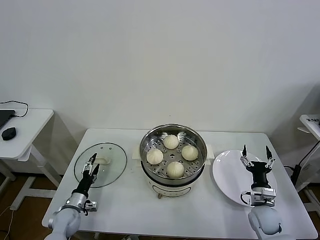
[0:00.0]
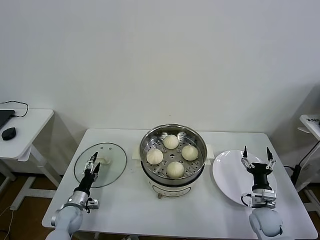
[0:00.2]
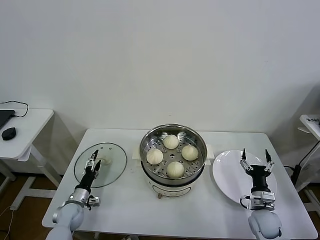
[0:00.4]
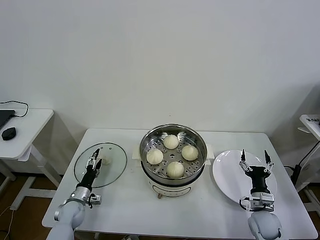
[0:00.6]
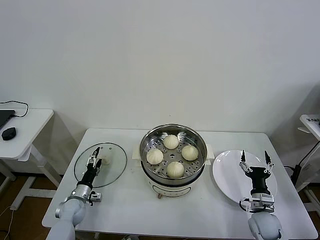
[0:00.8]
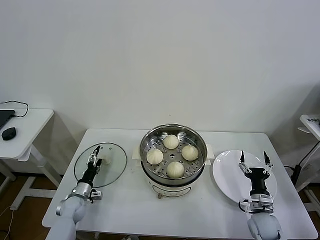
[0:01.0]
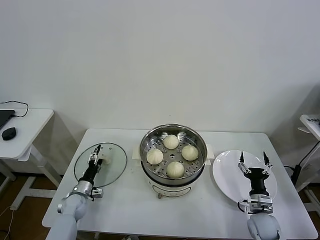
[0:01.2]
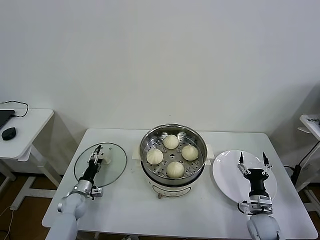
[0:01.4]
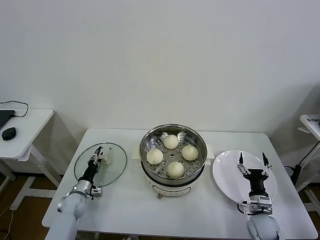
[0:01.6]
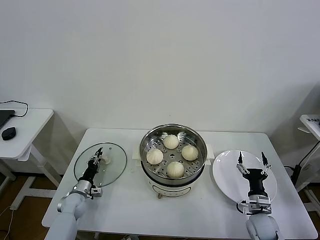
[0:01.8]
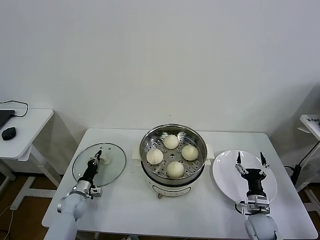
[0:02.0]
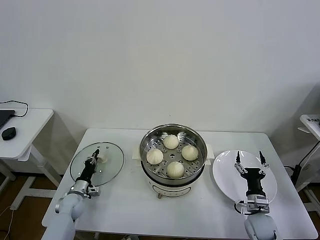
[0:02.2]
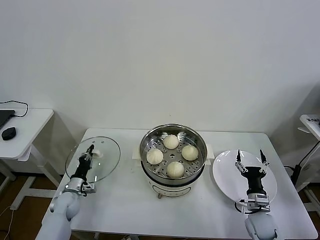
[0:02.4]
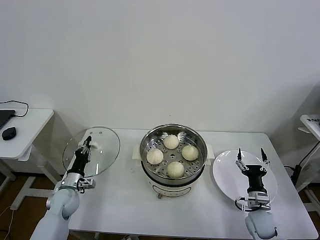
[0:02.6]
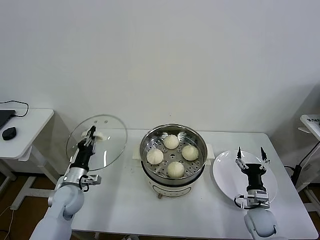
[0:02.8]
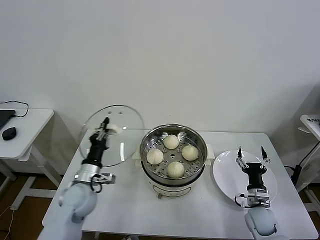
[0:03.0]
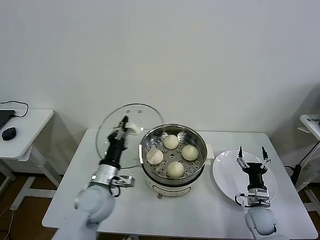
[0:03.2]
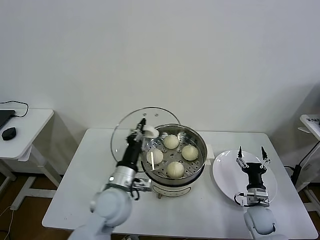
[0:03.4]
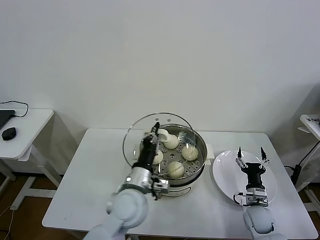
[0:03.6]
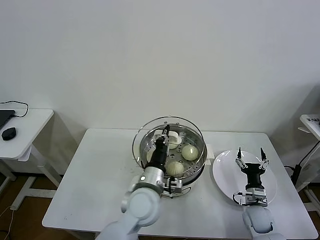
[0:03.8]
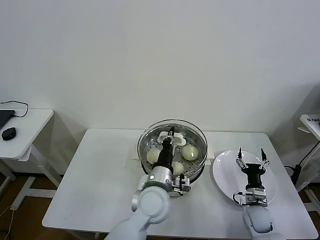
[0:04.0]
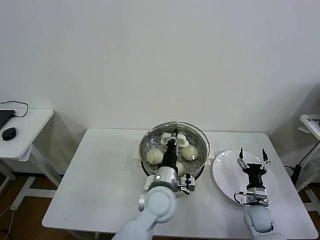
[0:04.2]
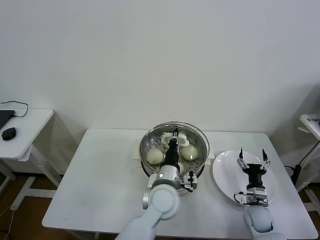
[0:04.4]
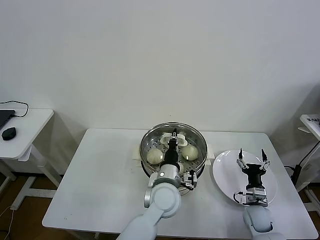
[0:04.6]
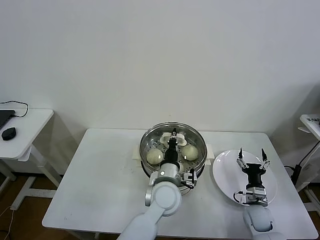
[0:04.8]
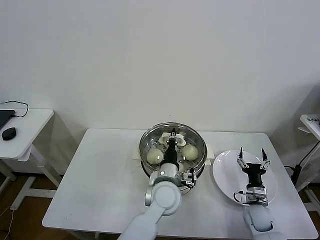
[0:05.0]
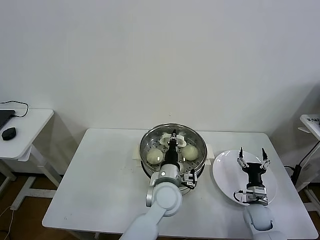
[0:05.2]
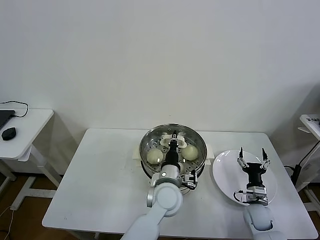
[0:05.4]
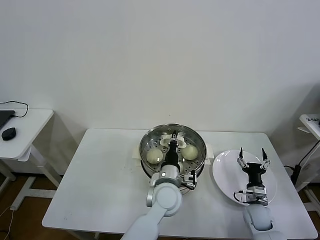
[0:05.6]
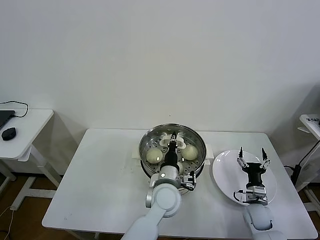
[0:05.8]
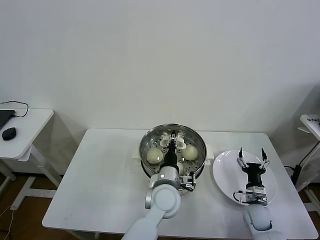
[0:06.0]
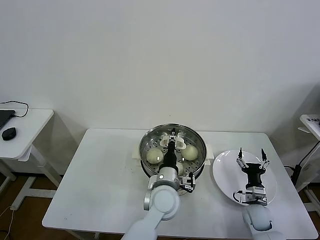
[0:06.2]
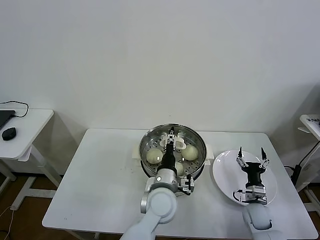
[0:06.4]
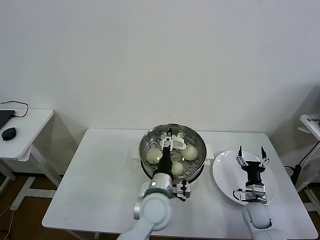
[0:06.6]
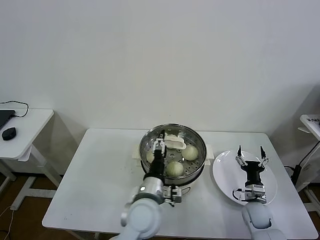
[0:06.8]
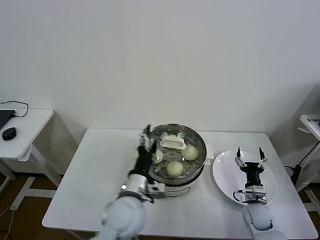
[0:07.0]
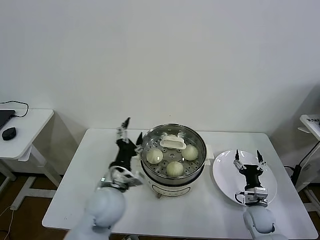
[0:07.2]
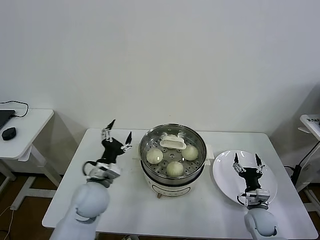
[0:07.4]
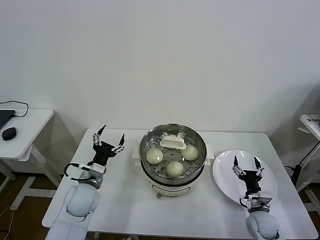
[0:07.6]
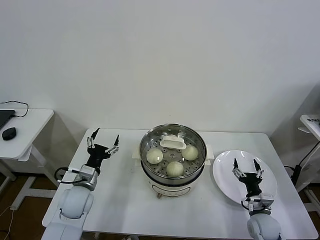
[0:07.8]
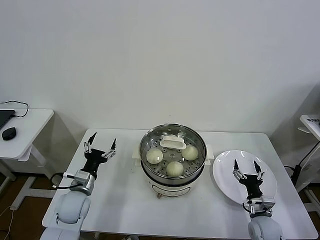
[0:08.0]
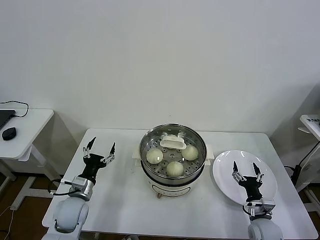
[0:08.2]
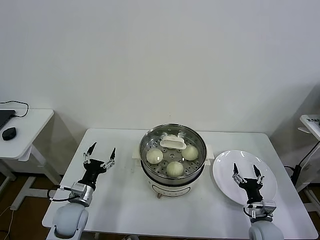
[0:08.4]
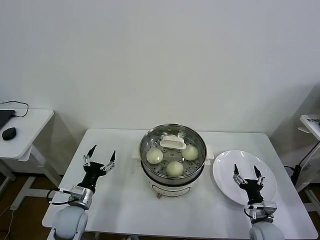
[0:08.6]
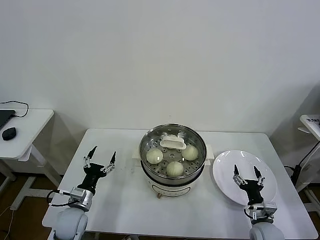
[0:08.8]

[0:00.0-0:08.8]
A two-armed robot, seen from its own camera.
Task of the whole recording: take steamed baozi put them in steamer then cover it.
Step, 0.0 to 2.2 s: Grasp the pot lid with left gripper.
Step, 2.4 to 6.2 s: Place the pot lid on the steamer with left gripper.
0.0 to 1.4 s: The left gripper is displaced forward by approximately 5 cm.
1.4 to 3.0 s: The left gripper moves upward and to the right, approximately 20 cm, and closes.
3.0 to 4.4 s: The left gripper heads to the right, covering about 25 cm.
4.4 to 5.8 s: The grippers make only small movements.
5.8 to 7.4 s: The left gripper moves to the left, about 20 cm, and opens up.
7.4 to 8.8 s: The right gripper shifts approximately 5 cm backward, while the left gripper travels downward and to the left by roughly 15 cm.

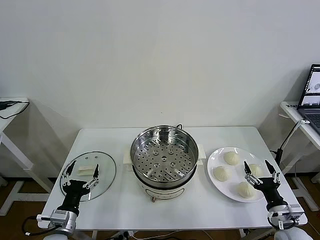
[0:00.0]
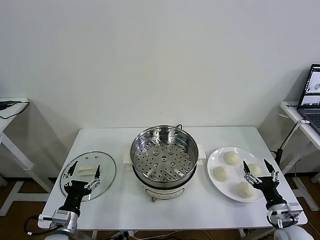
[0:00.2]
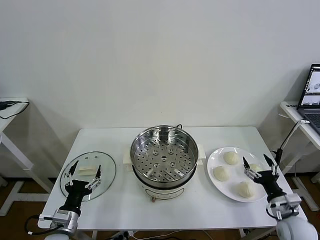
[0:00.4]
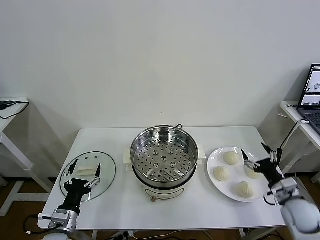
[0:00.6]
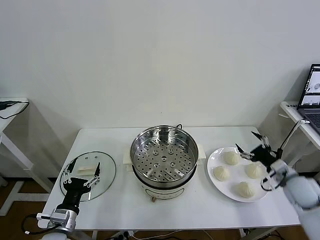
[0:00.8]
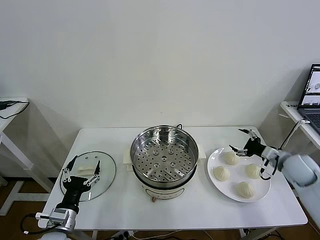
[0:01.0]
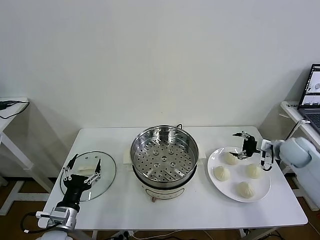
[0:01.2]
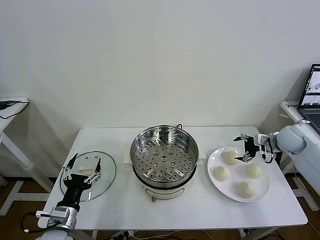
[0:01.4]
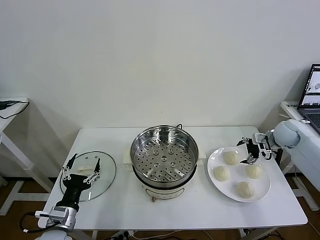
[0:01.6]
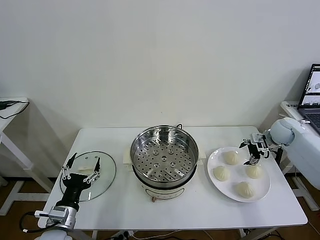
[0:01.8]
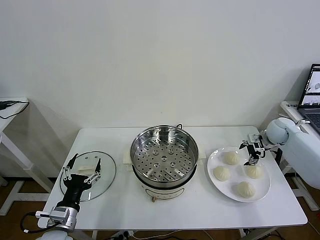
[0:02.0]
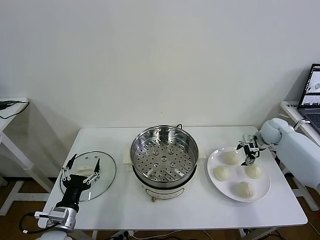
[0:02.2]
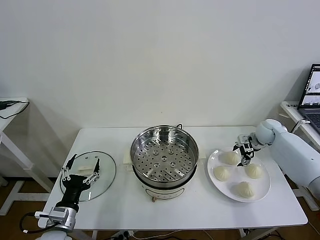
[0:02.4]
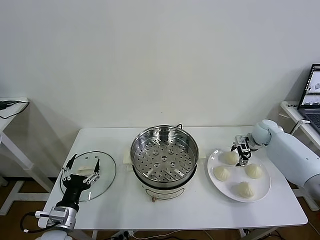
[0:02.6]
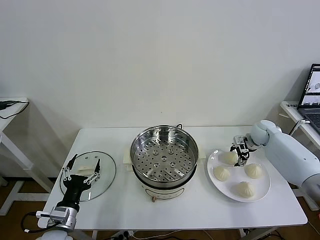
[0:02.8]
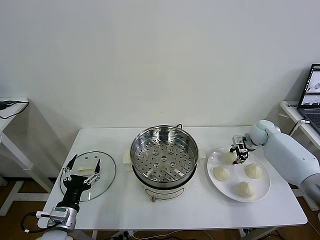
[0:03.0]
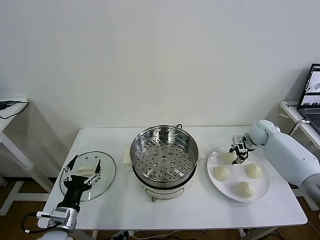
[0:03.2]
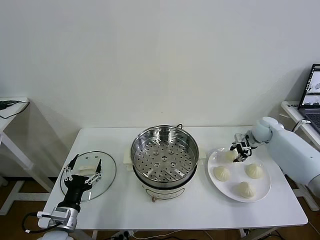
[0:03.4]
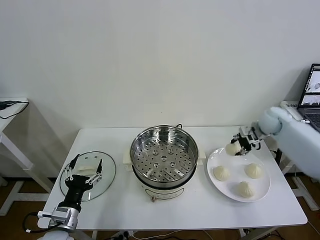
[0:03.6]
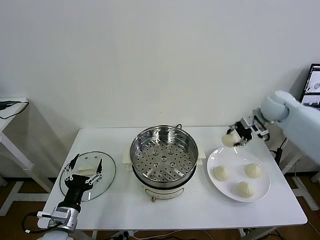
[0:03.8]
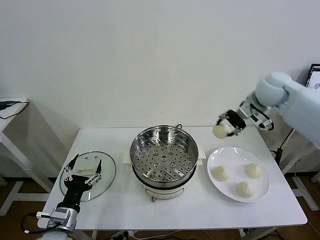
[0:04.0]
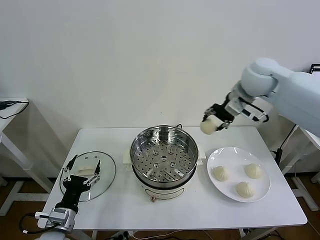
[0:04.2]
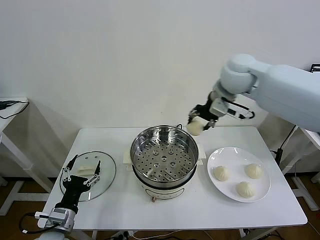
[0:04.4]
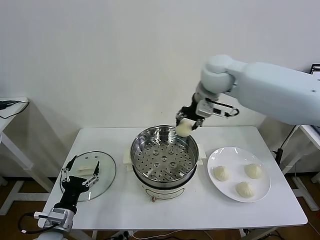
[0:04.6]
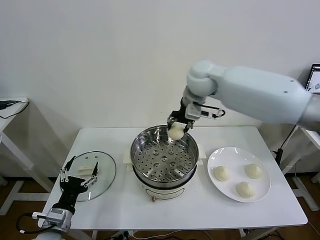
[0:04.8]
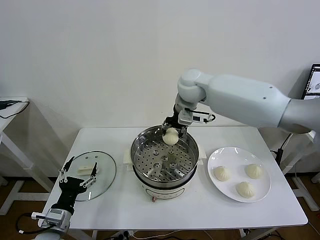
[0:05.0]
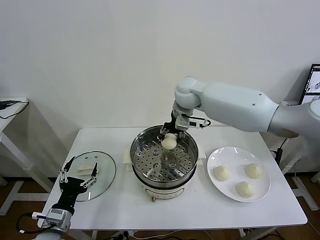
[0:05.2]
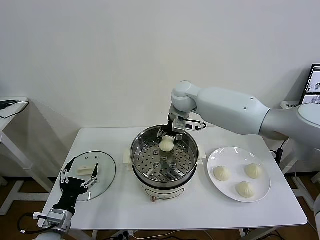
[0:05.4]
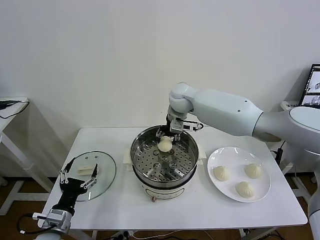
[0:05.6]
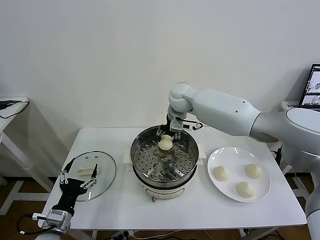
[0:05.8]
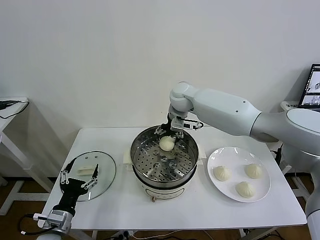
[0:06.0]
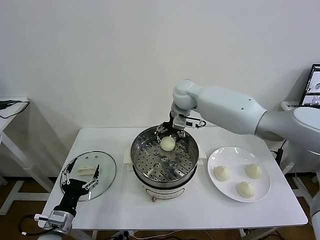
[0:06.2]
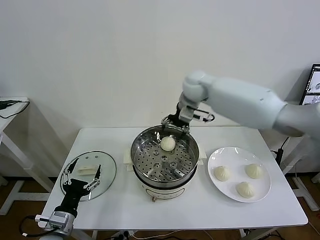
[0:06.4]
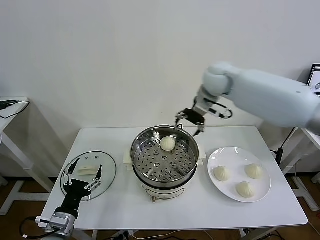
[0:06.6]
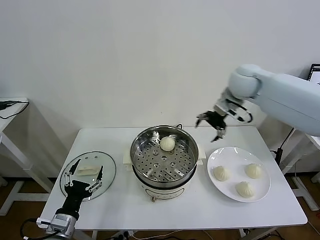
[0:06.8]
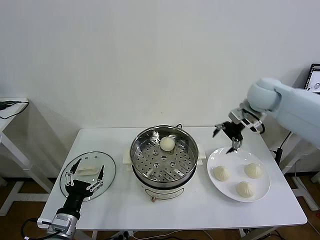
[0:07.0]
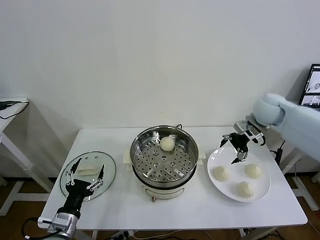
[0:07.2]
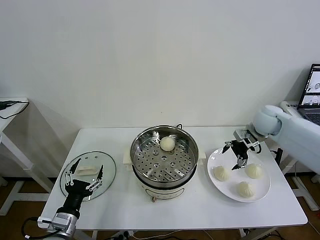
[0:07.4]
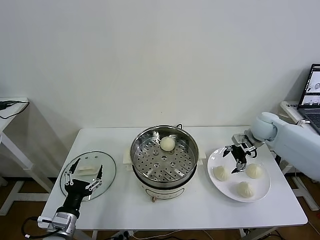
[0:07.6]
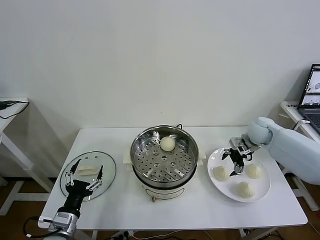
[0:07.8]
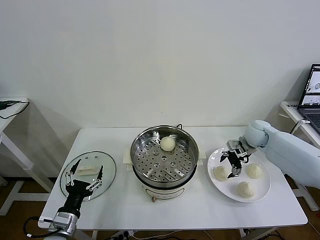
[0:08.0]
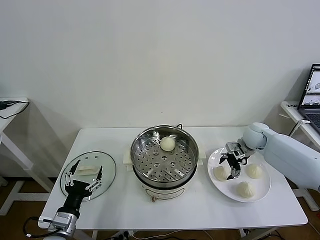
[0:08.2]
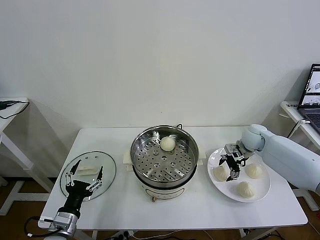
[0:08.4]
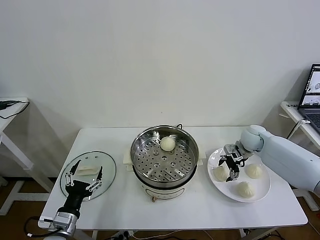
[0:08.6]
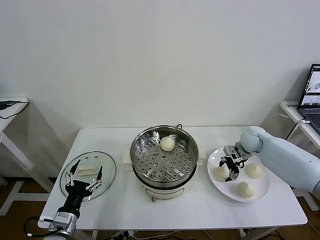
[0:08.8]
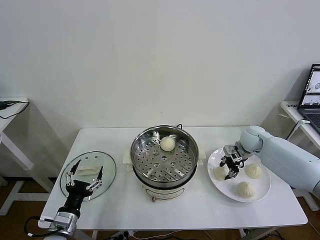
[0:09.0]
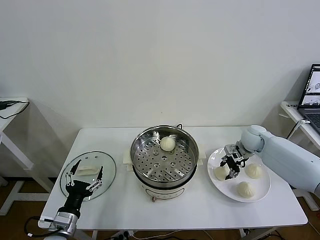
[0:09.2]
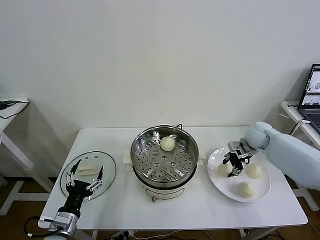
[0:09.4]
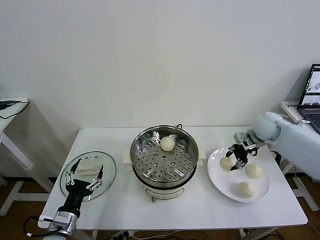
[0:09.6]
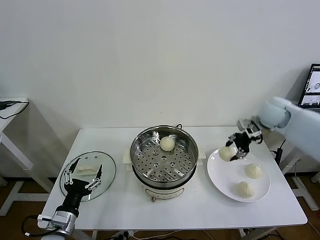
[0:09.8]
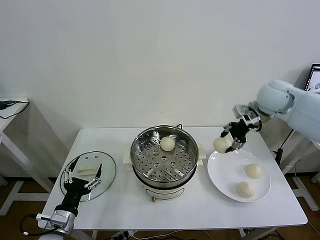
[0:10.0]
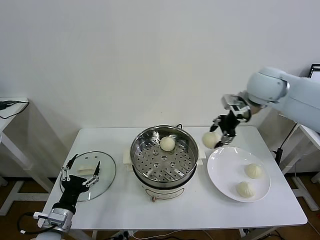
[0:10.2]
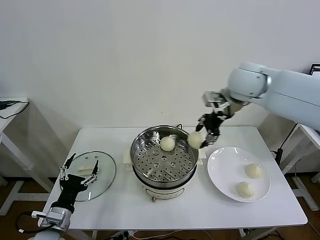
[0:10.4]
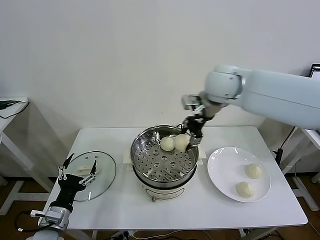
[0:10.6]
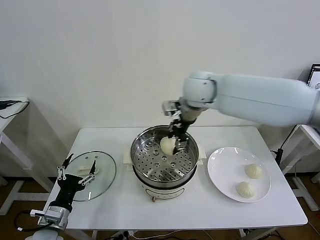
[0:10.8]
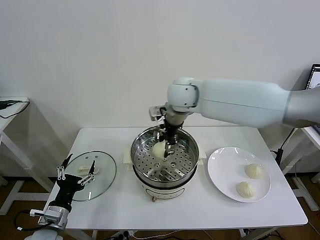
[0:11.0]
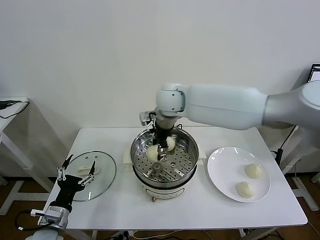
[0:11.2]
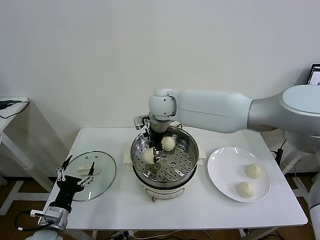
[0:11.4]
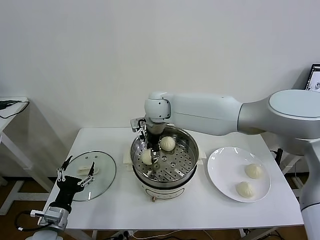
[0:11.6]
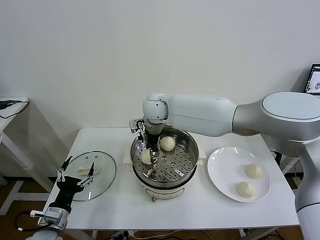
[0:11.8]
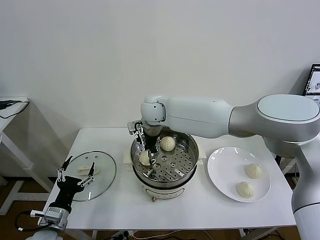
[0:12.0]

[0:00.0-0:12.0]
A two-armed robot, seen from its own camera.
Task of the whole recording: take steamed baozi put them in steamer then cover it.
Step, 0.0 to 3.0 s: Grasp the baozi in the plate with right gripper.
Step, 3.2 to 6.0 s: Place the baozi on the steamer with right gripper.
Step, 6.2 to 8.8 s: Grasp the baozi in the plate with right gripper.
1.6 to 3.0 s: The right gripper is displaced downward by approximately 5 cm, and closes up.
3.0 to 4.4 s: The right gripper shifts about 35 cm upward and to the left.
4.4 to 6.0 s: The right gripper goes approximately 15 cm downward, to the left and forward, and opens up.
6.0 to 7.6 s: The right gripper shifts about 30 cm to the right.
7.6 to 9.0 s: The right gripper heads downward, covering some 5 cm, and closes.
9.0 to 10.4 s: The right gripper moves upward and to the left, about 30 cm.
10.4 to 12.0 s: The right gripper shifts roughly 25 cm to the left and downward.

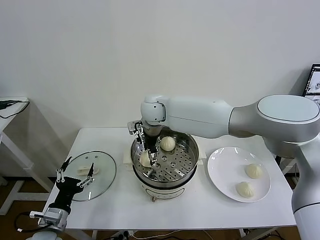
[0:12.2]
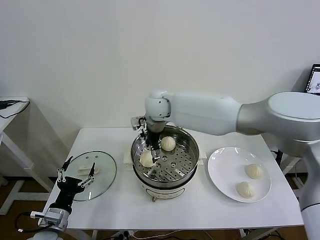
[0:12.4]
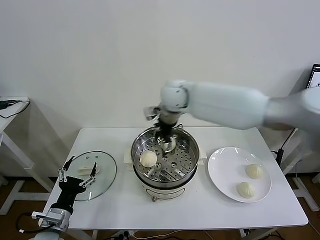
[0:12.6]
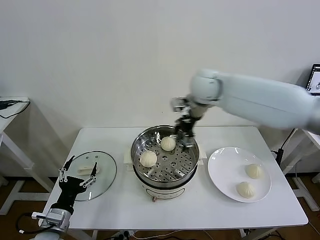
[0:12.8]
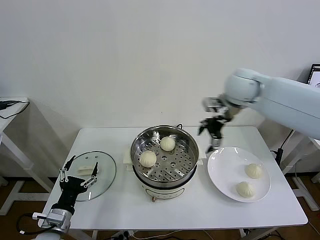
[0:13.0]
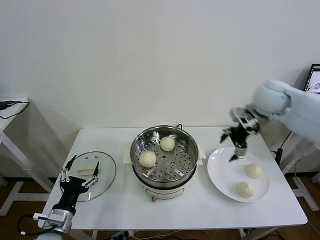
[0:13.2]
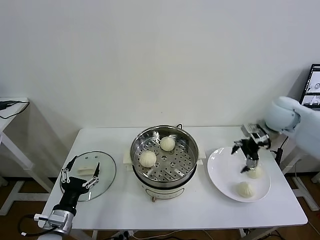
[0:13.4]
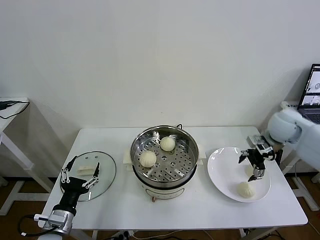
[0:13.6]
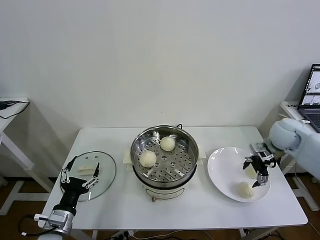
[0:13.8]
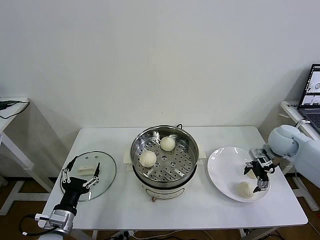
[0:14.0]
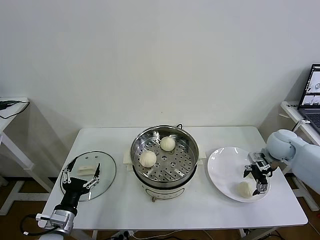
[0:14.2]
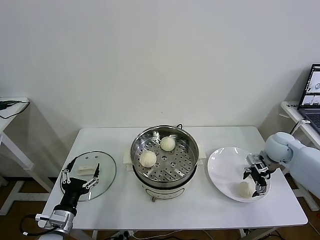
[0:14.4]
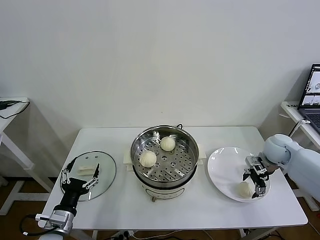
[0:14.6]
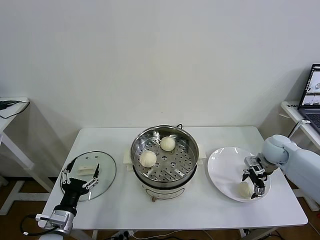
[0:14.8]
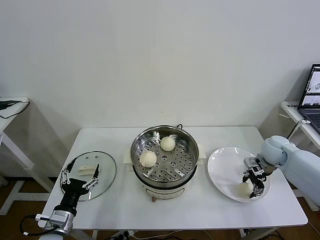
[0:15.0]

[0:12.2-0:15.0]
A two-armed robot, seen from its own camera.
Task of the whole recording: take steamed baozi put them in steamer then cover it.
Step, 12.4 to 15.0 s: Grasp the baozi in the plate with right gripper.
12.2 to 13.6 s: The right gripper moves to the right, some 40 cm.
13.6 to 15.0 s: The right gripper heads downward, covering about 10 cm, and closes up.
